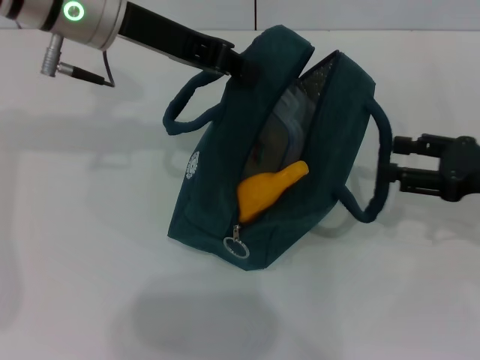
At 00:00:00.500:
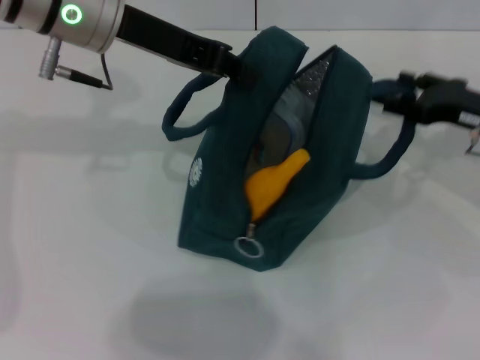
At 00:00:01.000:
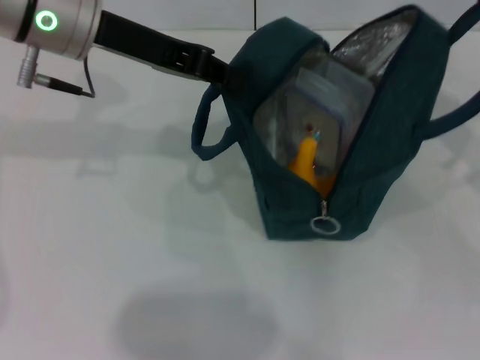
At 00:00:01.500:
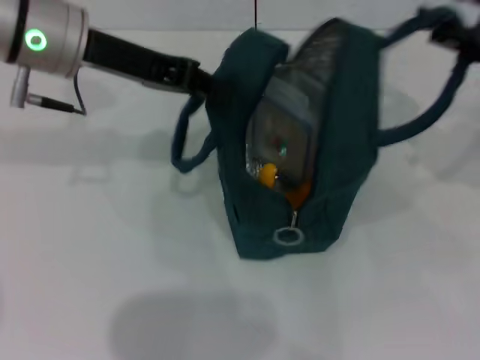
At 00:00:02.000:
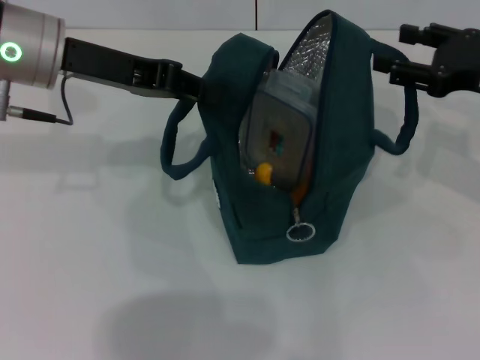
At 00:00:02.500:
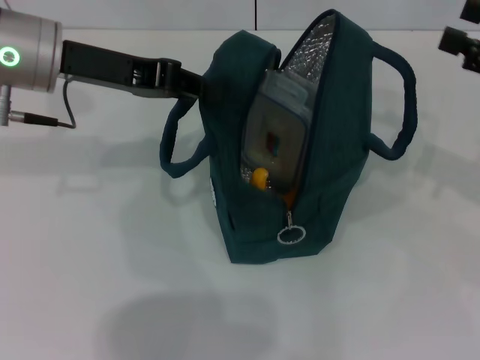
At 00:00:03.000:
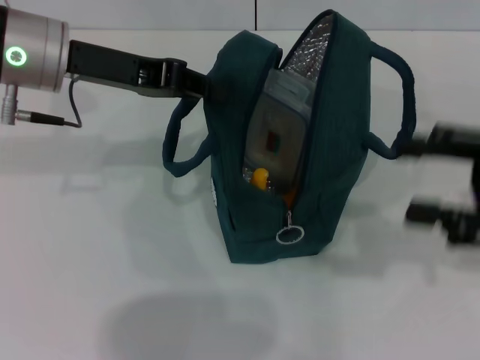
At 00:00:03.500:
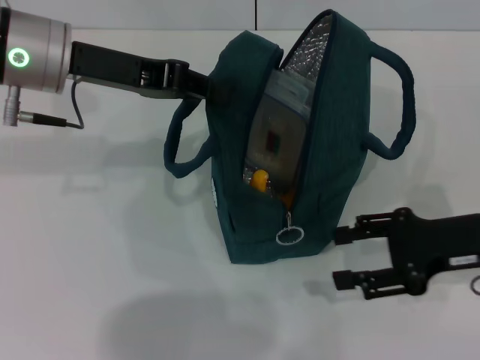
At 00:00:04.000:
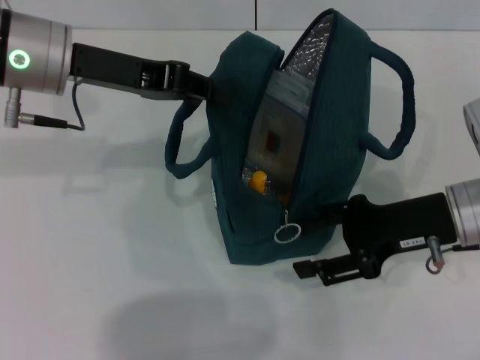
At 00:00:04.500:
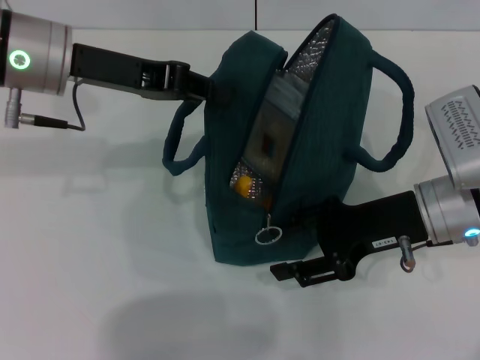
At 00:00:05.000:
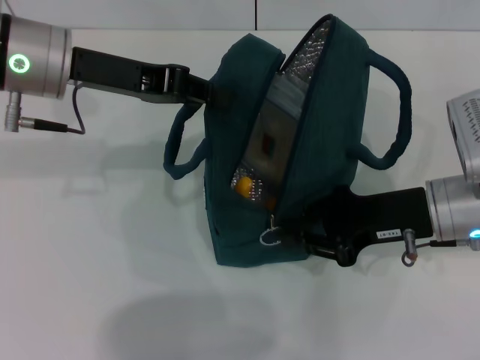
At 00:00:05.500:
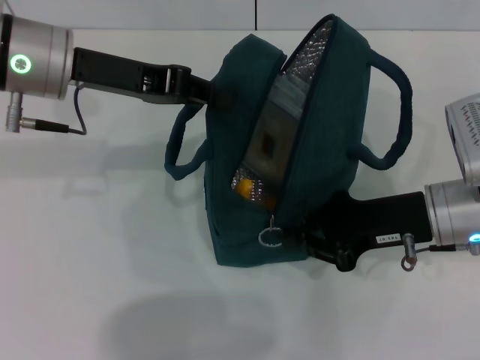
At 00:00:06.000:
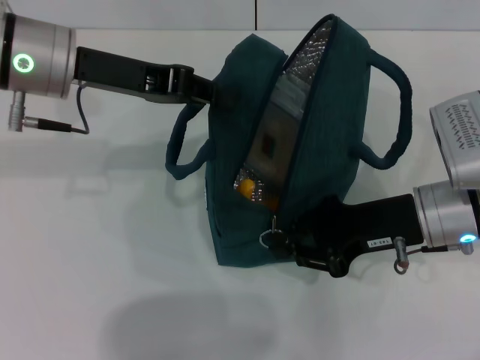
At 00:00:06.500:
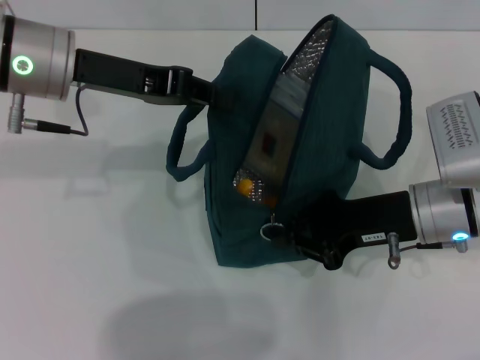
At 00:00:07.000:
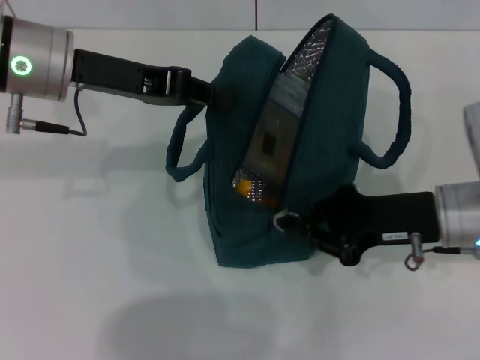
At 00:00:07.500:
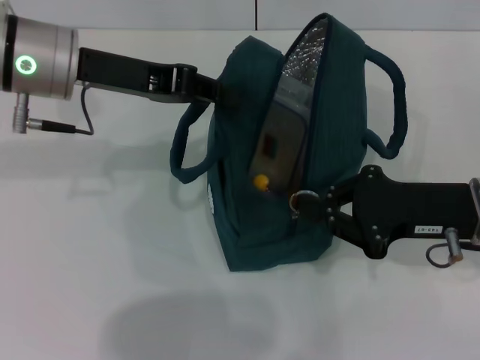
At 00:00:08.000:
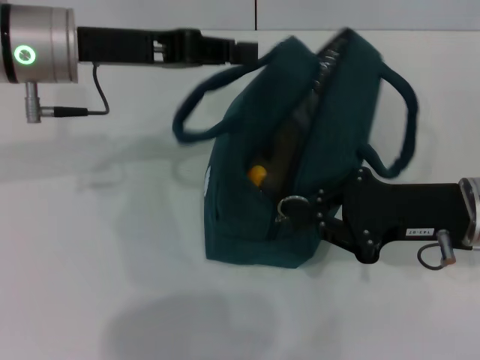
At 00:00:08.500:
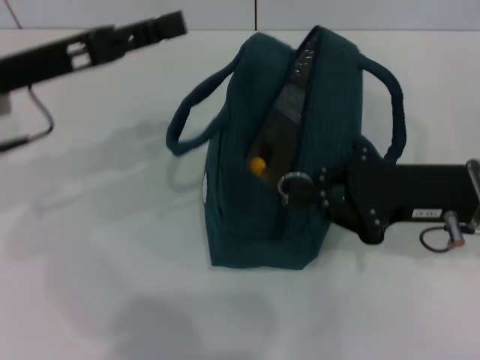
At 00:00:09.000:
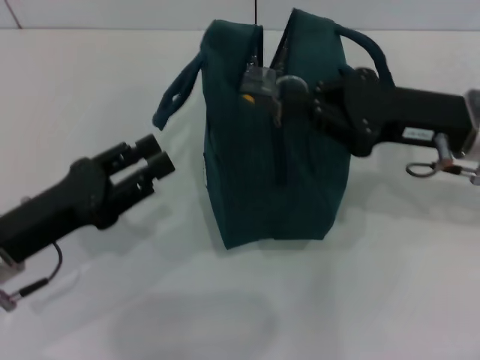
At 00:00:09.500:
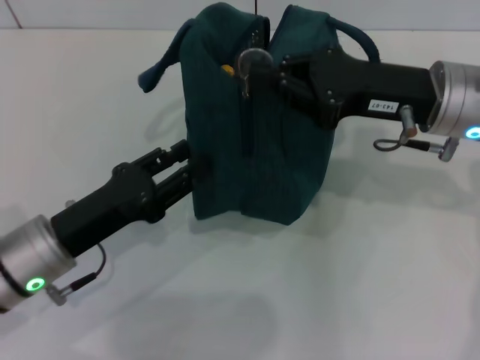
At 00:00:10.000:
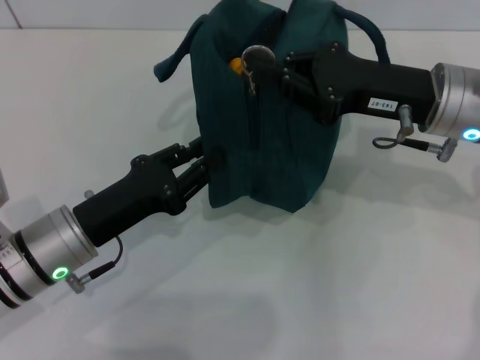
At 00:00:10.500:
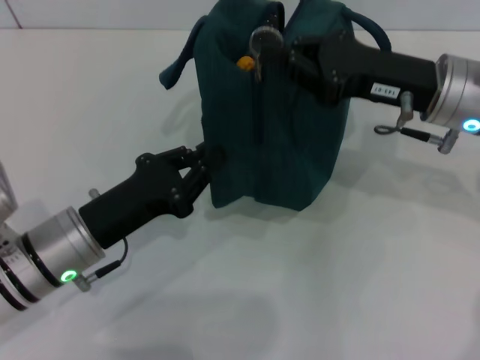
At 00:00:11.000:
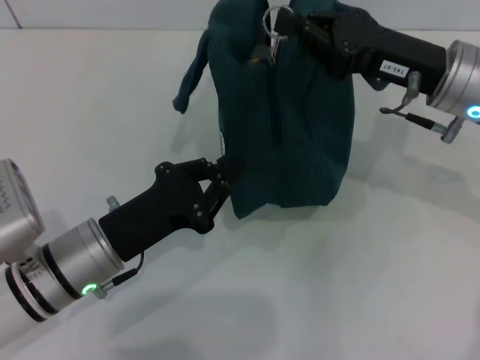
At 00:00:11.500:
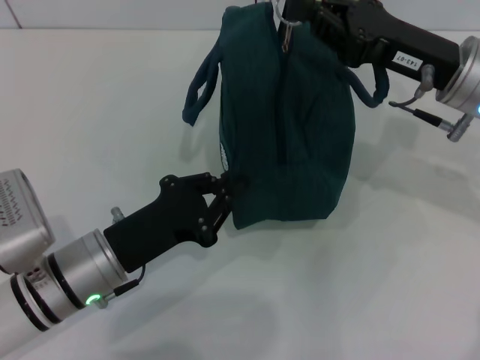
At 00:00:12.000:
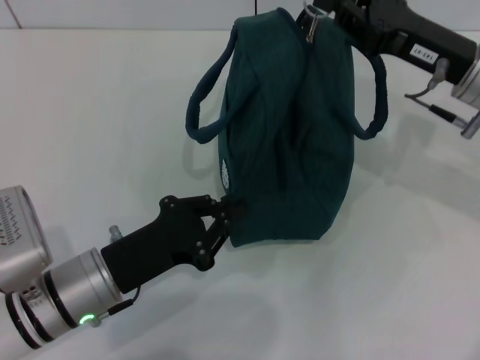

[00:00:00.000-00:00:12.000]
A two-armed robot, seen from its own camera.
Step, 00:00:00.000 to 00:00:02.000: Hold the lunch bag with your right hand.
00:00:00.000 to 00:00:02.000: The right gripper travels upward by about 5 cm. The left gripper moves to the left, some 5 cm.
00:00:02.000 to 00:00:04.000: The right gripper goes some 10 cm downward and to the left.
00:00:04.000 to 00:00:06.000: The right gripper closes.
00:00:08.000 to 00:00:10.000: The left gripper heads downward and backward, covering about 20 cm, and opens, while the right gripper goes approximately 5 cm forward.
00:00:10.000 to 00:00:12.000: The left gripper closes up.

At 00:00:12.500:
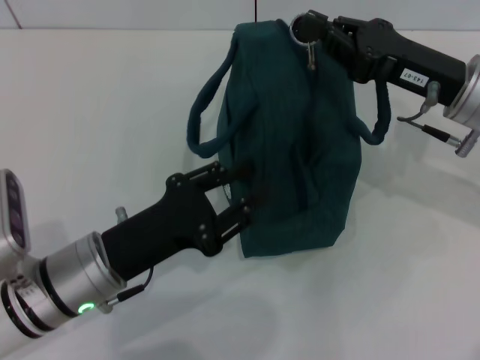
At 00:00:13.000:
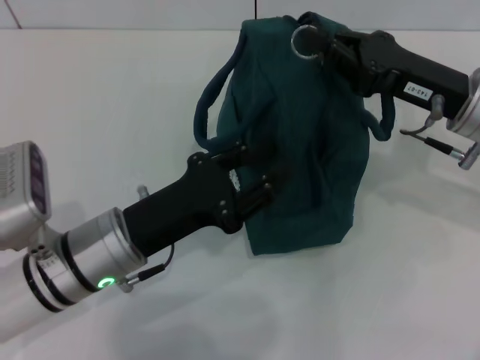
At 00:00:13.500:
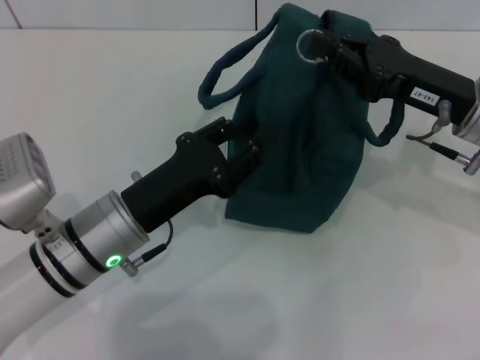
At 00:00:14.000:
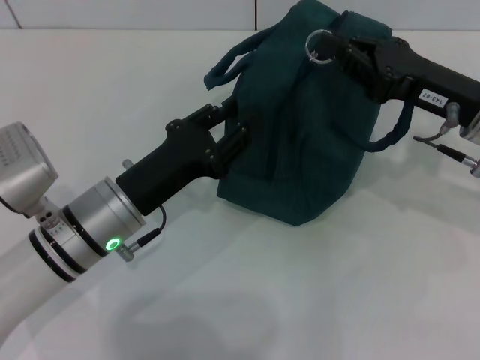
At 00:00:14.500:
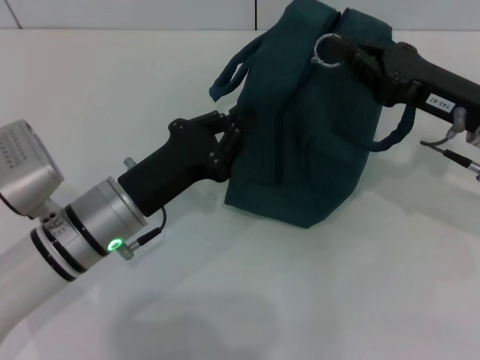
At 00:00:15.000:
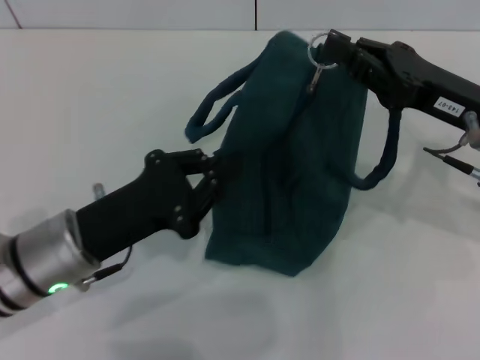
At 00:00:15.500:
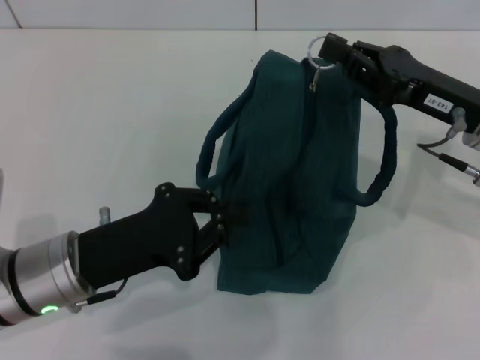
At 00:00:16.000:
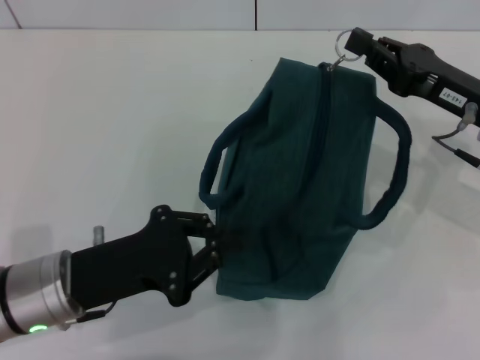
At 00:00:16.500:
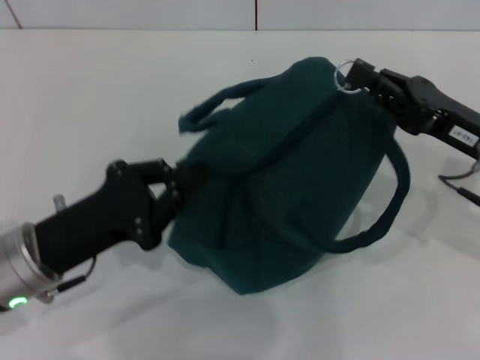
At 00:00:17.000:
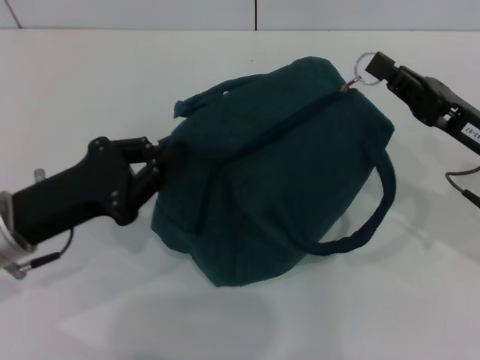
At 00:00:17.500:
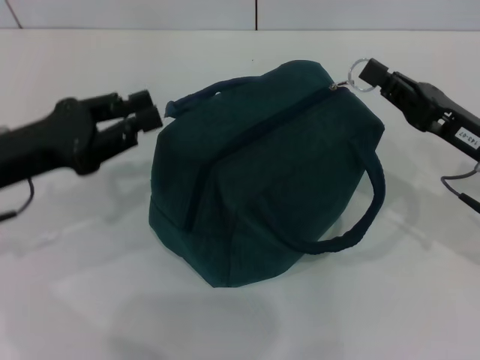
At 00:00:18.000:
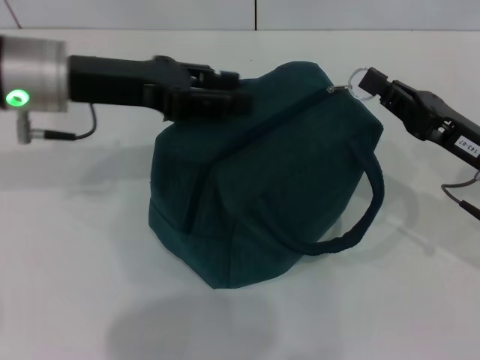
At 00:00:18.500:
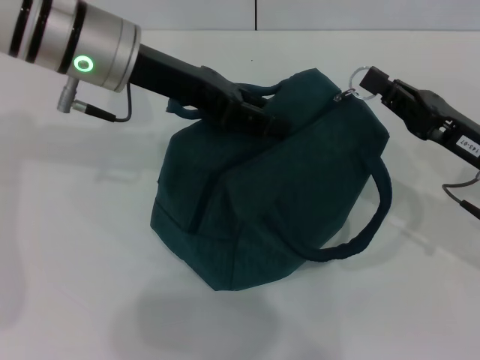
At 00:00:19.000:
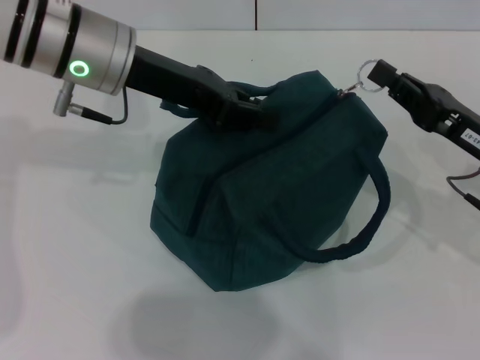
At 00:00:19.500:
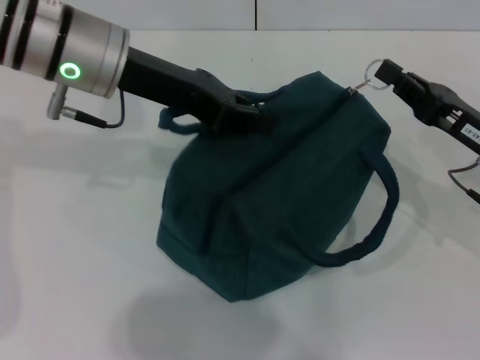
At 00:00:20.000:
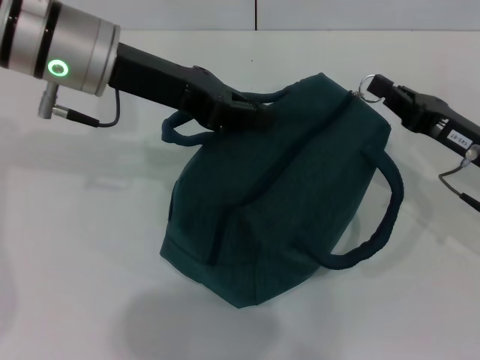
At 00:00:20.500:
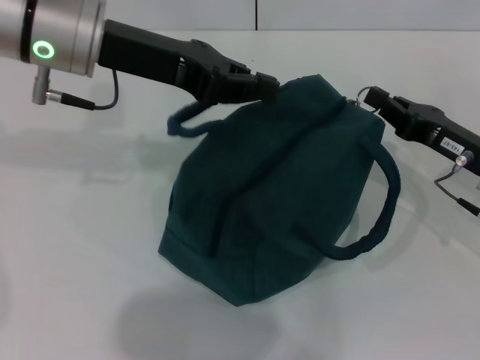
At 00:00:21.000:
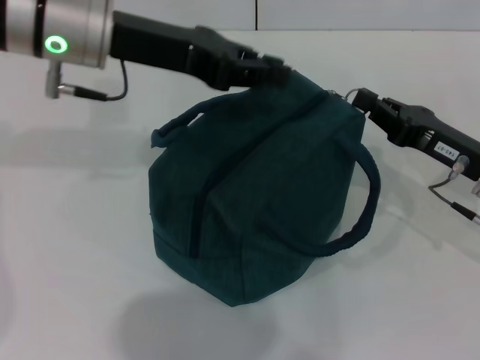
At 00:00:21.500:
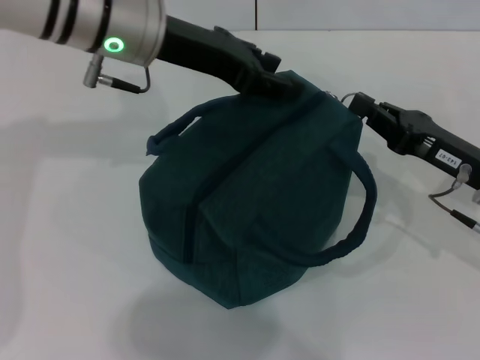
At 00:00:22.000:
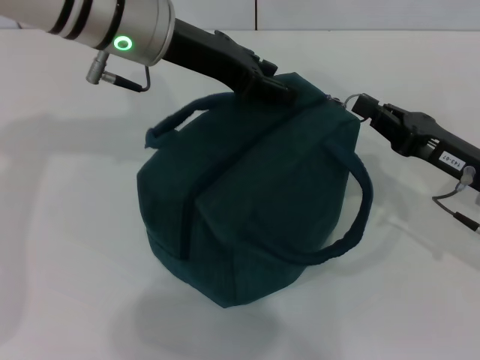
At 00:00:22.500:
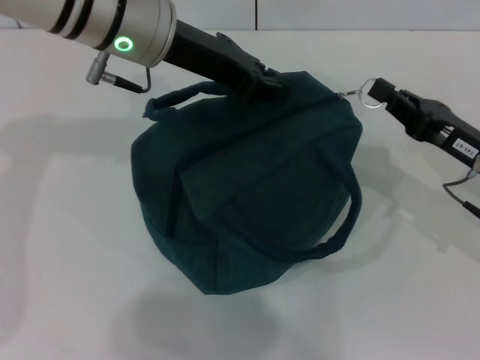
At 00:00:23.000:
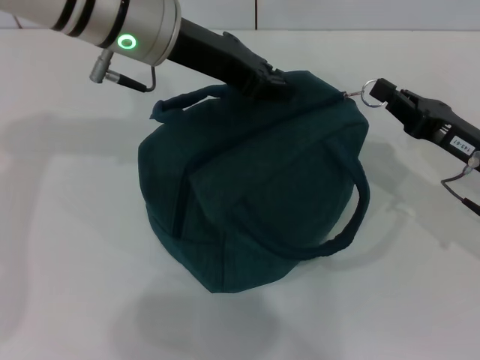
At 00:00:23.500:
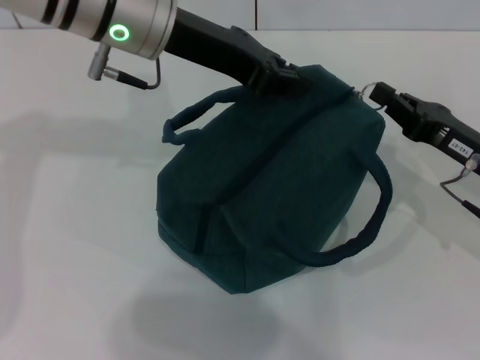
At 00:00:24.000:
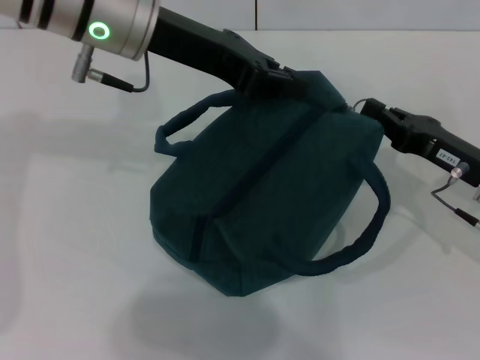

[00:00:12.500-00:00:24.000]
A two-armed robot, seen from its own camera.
00:00:14.500 to 00:00:16.500: The left gripper shifts some 5 cm to the left.
00:00:16.500 to 00:00:18.500: The left gripper moves forward, upward and to the right, approximately 20 cm, and opens up.
00:00:18.500 to 00:00:20.000: The left gripper closes its fingers.
00:00:20.000 to 00:00:22.000: The left gripper opens up.
00:00:22.000 to 00:00:24.000: The left gripper closes up.

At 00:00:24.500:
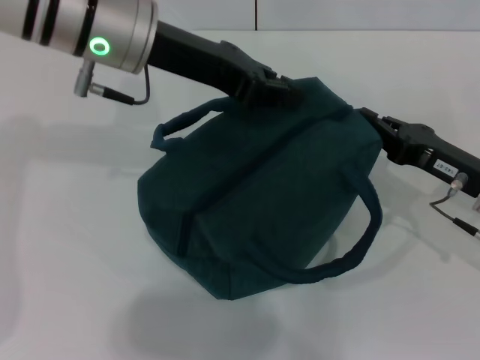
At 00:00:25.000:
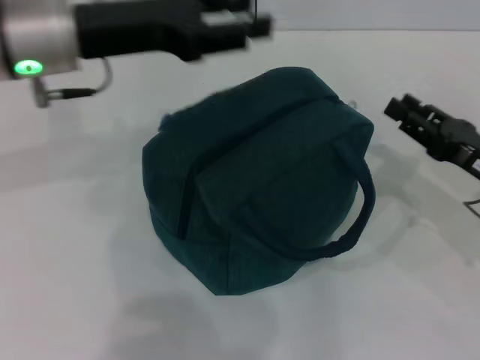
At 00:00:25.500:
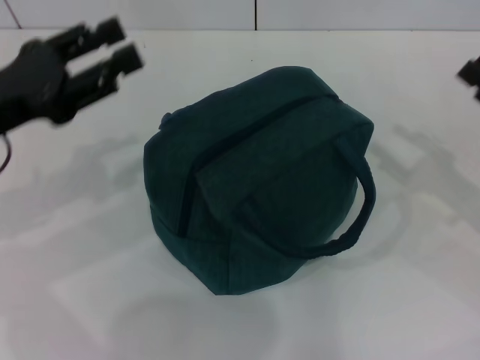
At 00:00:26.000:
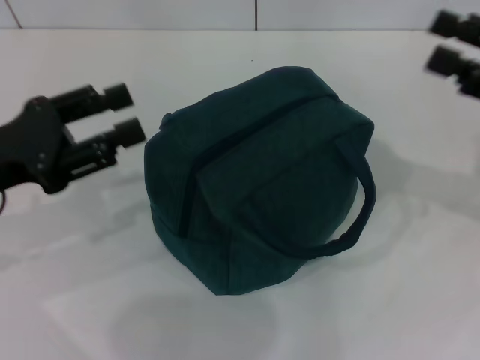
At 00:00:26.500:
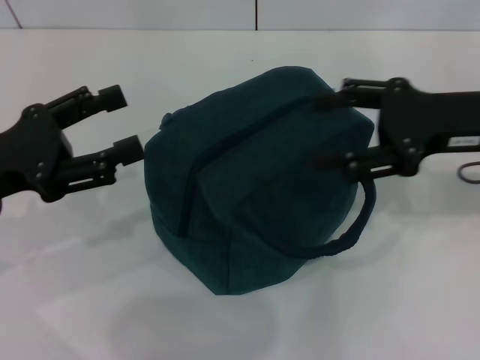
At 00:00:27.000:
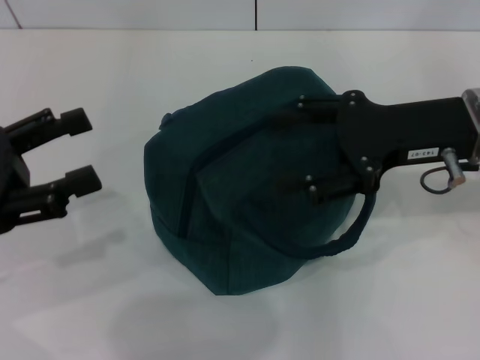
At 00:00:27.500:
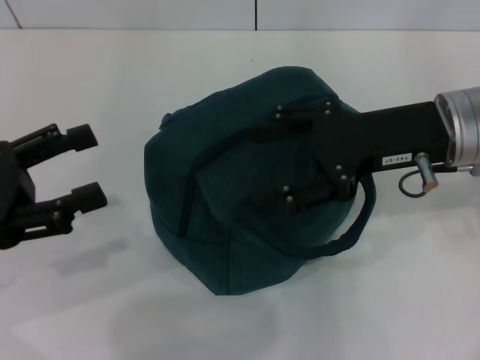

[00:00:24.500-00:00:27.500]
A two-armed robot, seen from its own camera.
00:00:24.500 to 00:00:26.000: The left gripper is displaced to the left, backward and downward by roughly 20 cm, and opens. Meanwhile the right gripper heads upward and to the right, covering some 15 cm, and opens.
00:00:26.000 to 00:00:27.500: The left gripper opens up; the right gripper moves to the left, some 15 cm.
